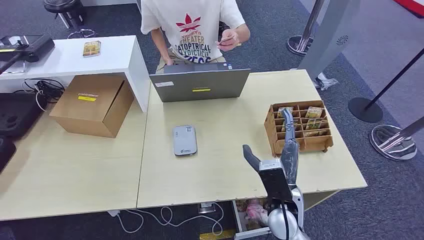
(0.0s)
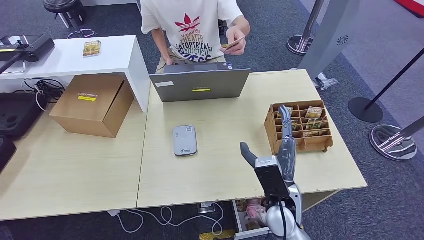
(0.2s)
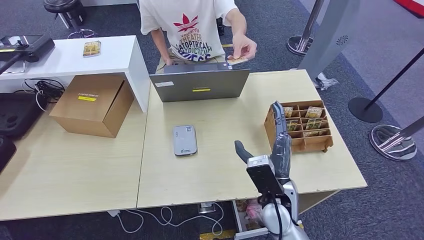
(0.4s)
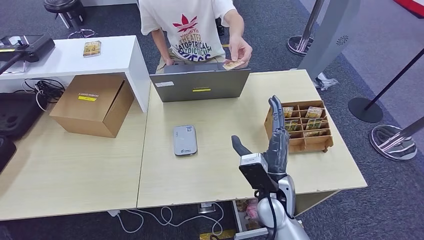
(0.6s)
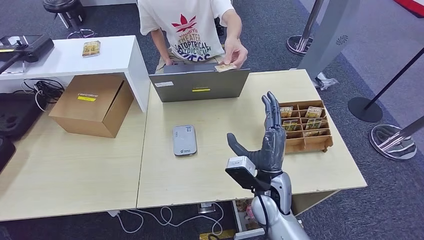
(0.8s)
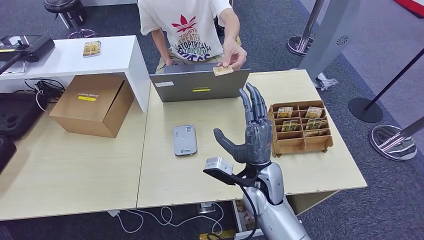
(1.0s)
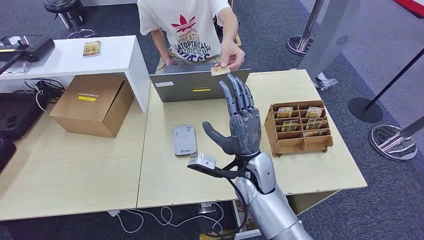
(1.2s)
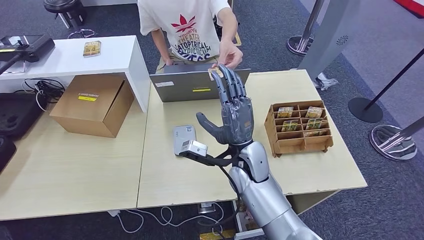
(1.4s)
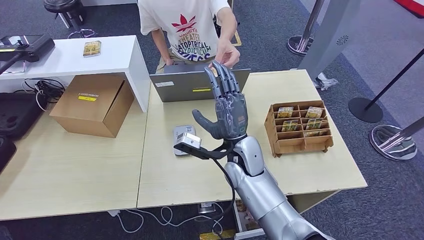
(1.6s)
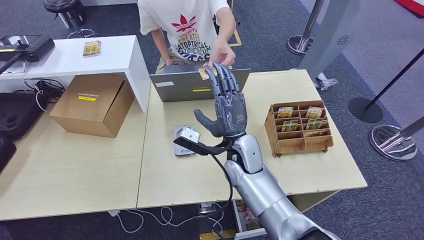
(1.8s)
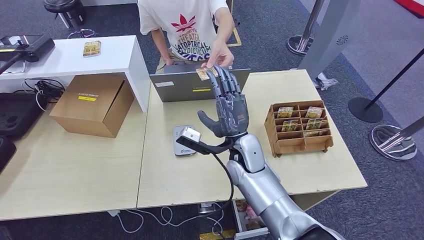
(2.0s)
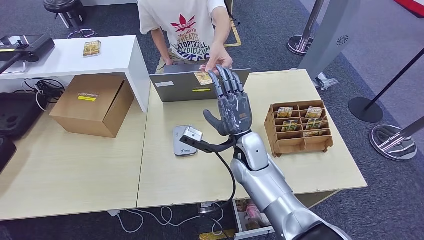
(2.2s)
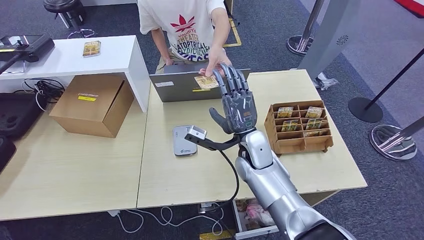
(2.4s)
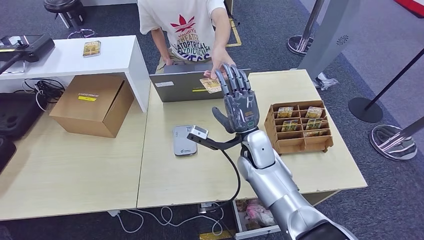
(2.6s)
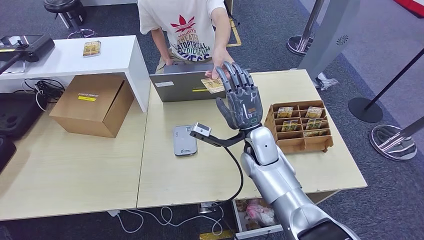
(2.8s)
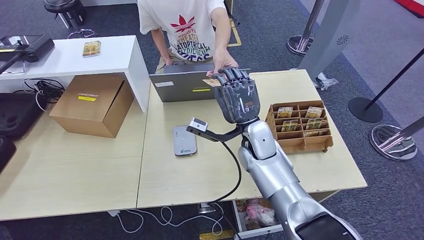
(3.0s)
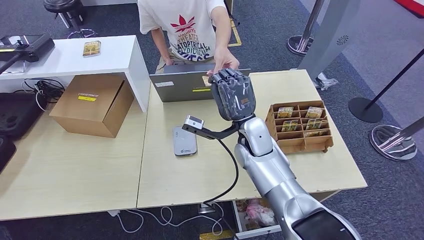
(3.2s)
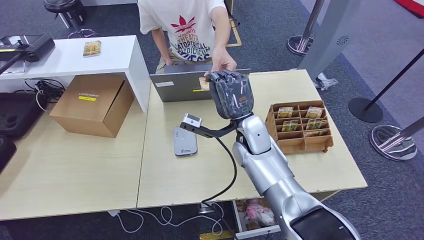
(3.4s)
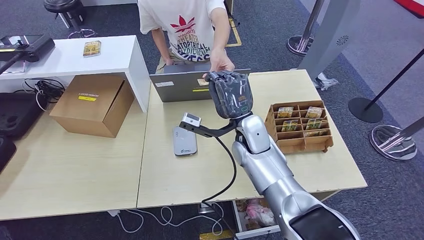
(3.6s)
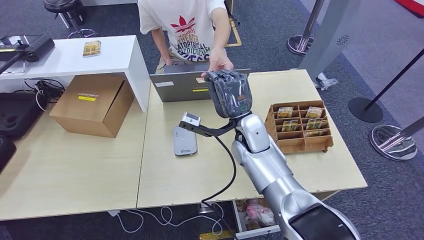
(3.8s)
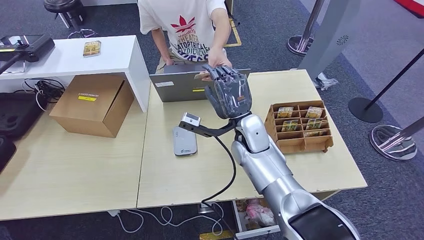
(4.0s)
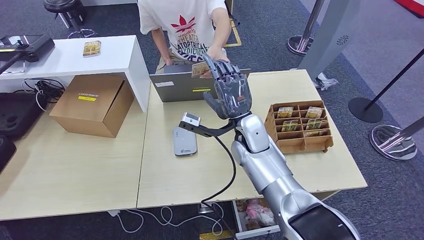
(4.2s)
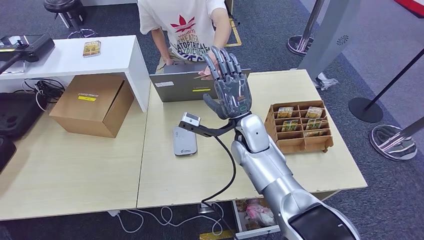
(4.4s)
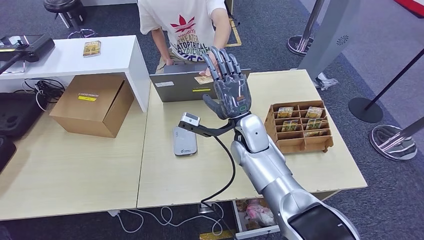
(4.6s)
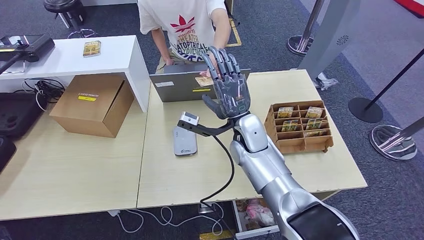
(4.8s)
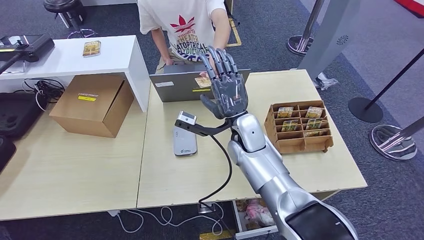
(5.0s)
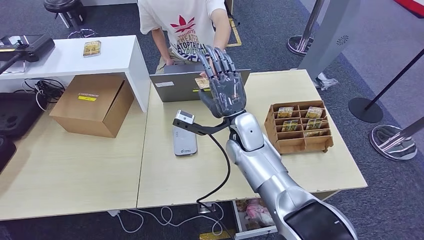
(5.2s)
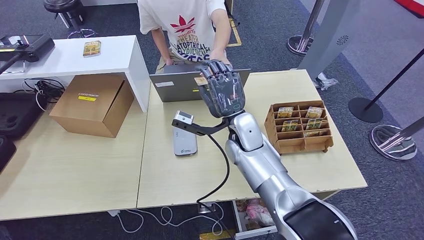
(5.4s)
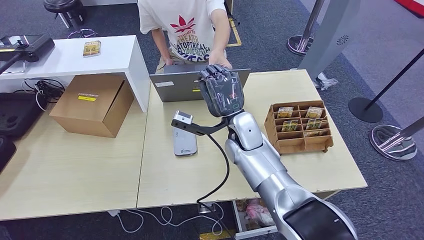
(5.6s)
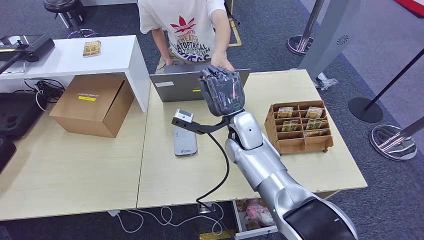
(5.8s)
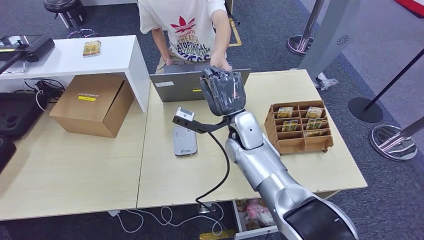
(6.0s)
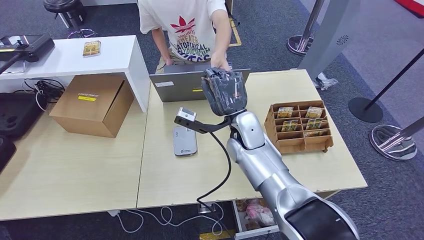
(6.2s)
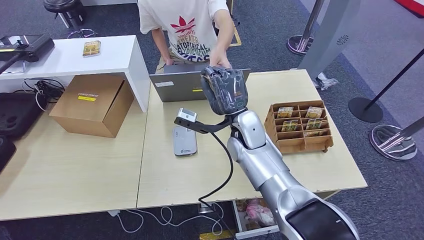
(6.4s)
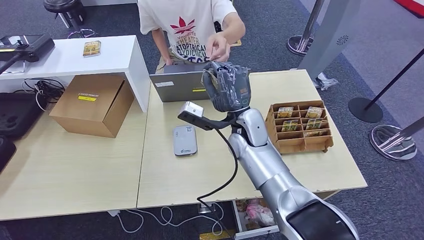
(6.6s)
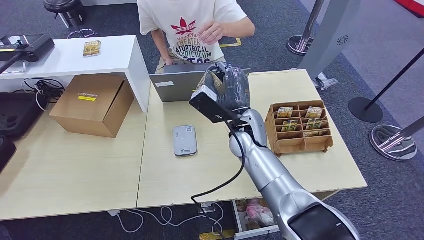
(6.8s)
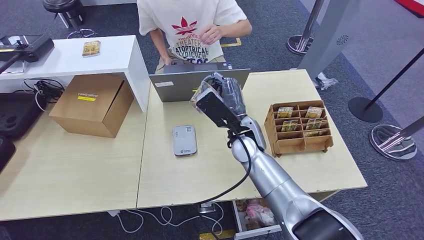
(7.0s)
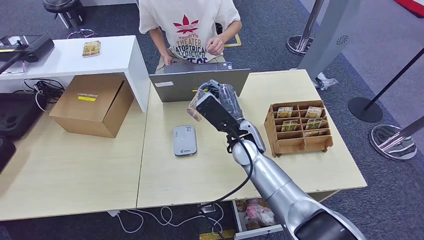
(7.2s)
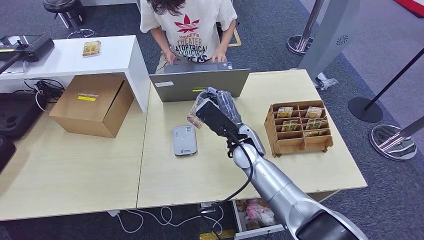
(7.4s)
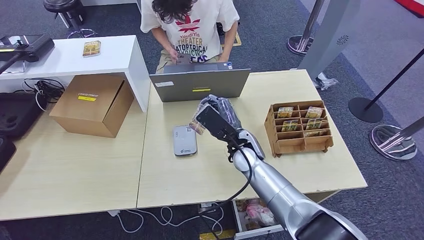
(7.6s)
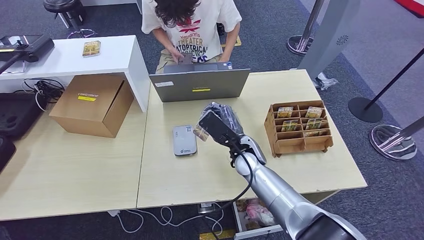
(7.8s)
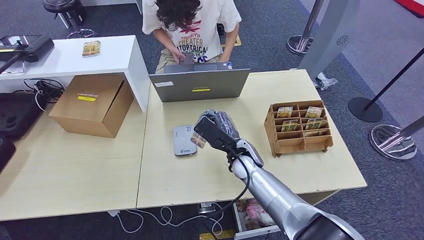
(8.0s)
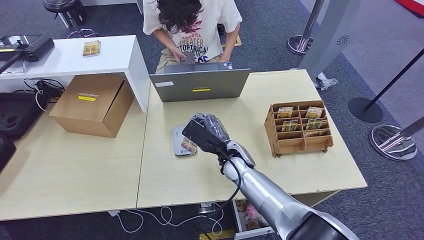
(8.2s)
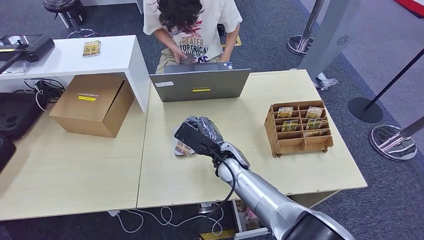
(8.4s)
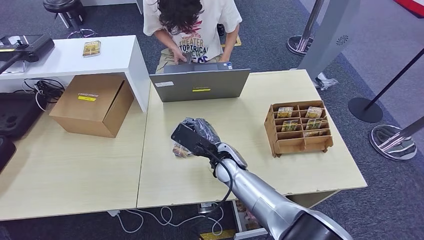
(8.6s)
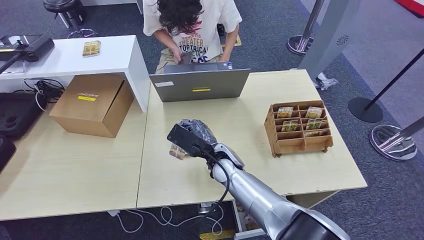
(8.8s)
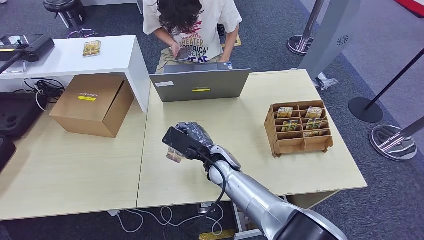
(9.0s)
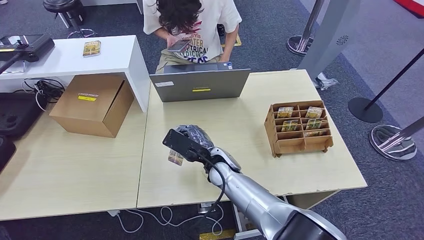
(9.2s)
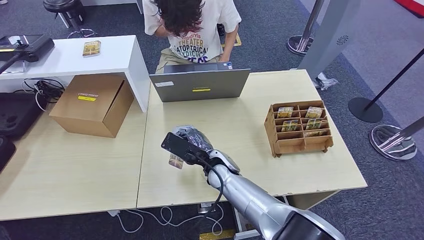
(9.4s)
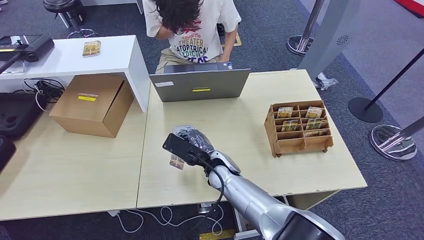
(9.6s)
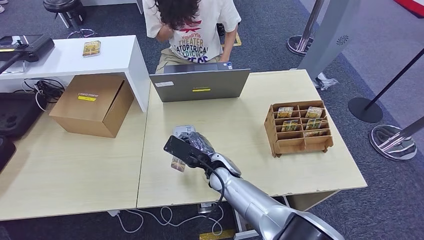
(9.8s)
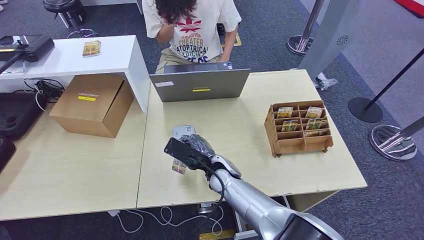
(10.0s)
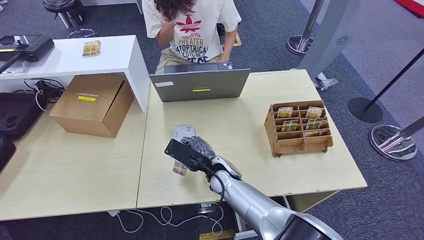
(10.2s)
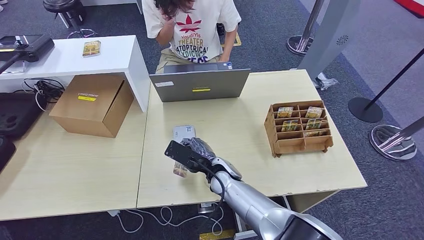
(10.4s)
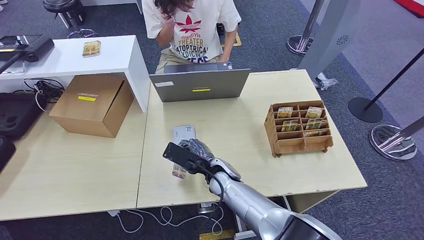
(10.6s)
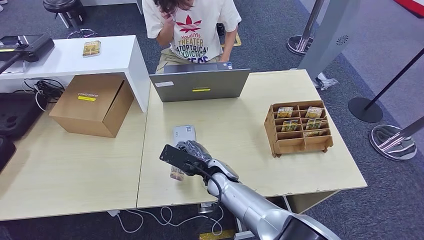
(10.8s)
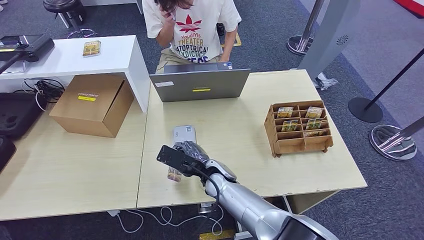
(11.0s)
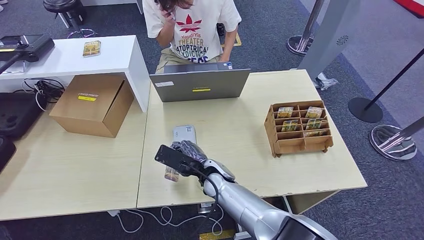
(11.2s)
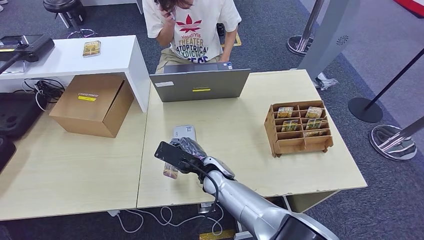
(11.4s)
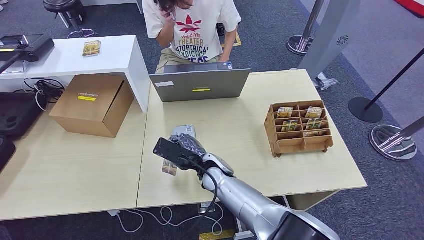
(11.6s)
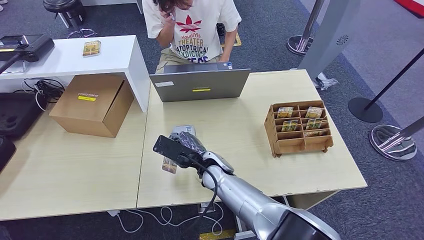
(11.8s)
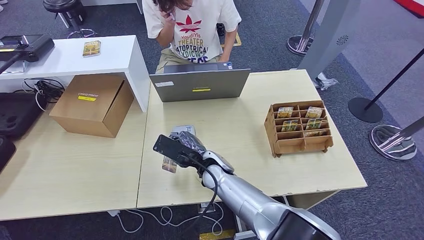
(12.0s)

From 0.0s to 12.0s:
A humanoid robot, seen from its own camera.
Step, from 0.0s to 4.0s: Take the ID card from the person's hand.
From 1.6s to 3.0s: The right hand moves about 5 cm.
From 3.0s to 6.0s: The hands move only a little.
From 6.0s to 7.6s: The right hand shifts by about 5 cm.
From 7.6s to 9.0s: The right hand heads to the left, covering roughly 5 cm.
From 9.0s to 12.0s: The hands make only small movements.

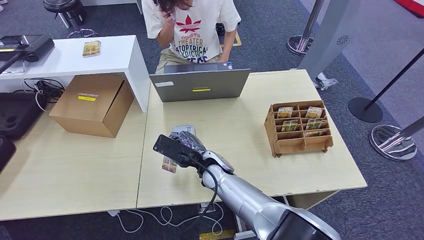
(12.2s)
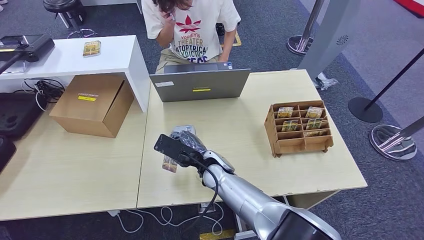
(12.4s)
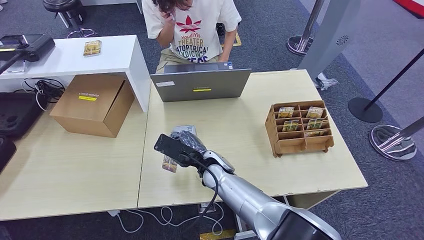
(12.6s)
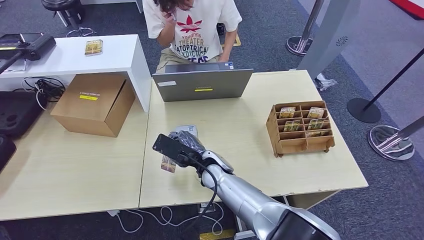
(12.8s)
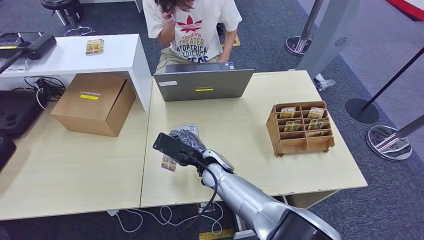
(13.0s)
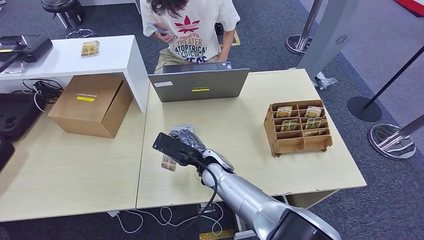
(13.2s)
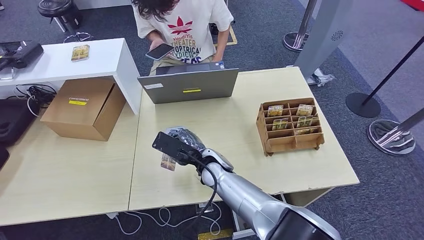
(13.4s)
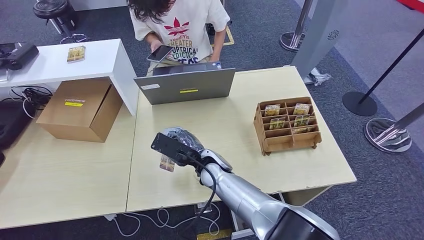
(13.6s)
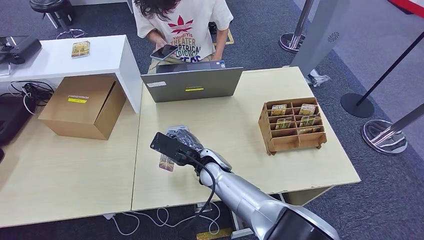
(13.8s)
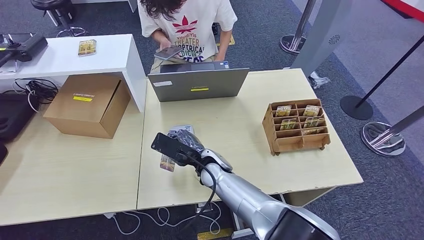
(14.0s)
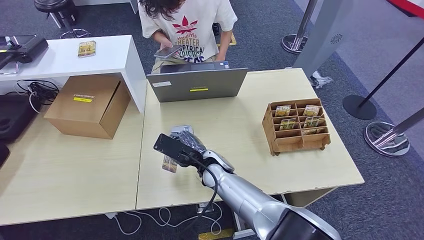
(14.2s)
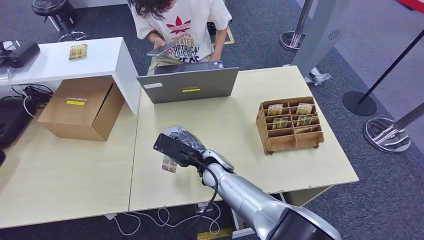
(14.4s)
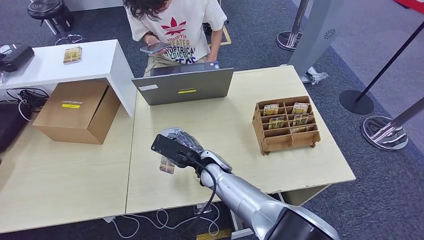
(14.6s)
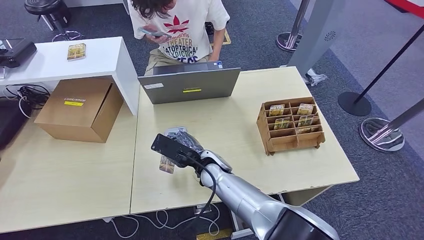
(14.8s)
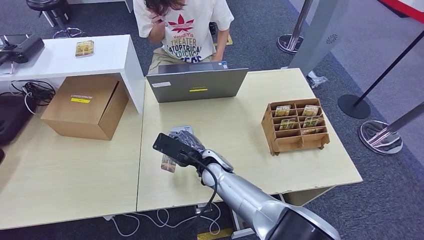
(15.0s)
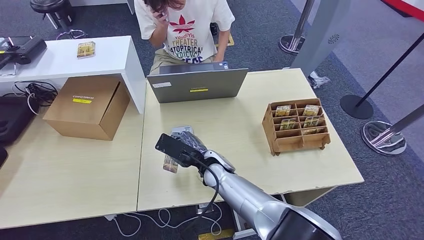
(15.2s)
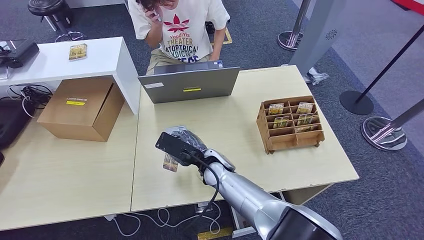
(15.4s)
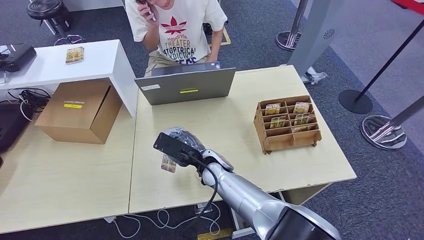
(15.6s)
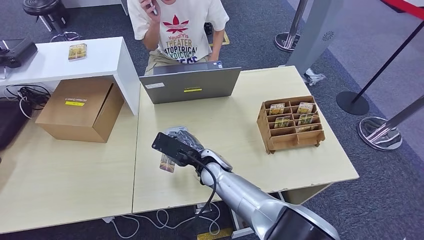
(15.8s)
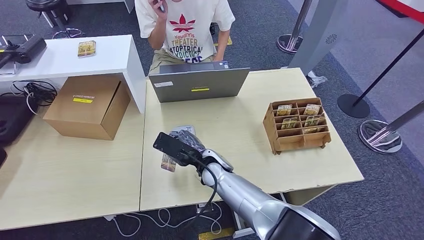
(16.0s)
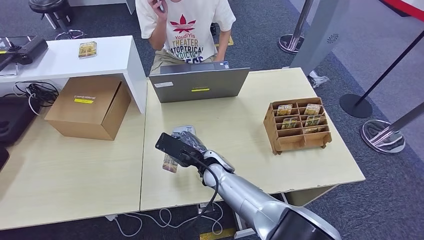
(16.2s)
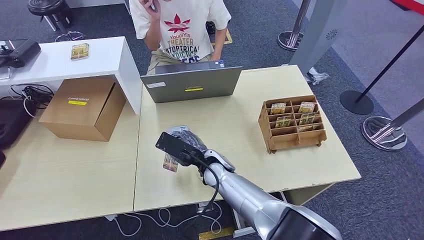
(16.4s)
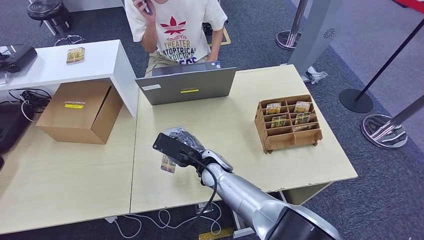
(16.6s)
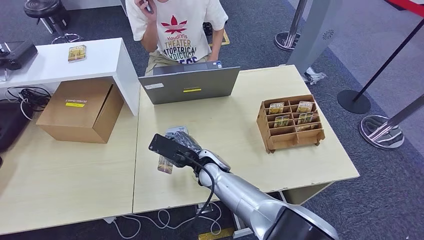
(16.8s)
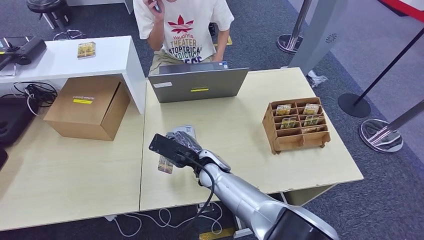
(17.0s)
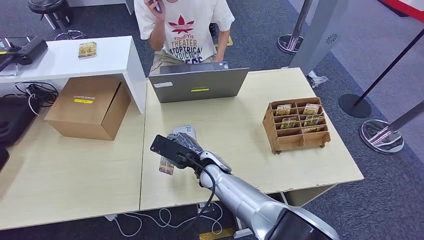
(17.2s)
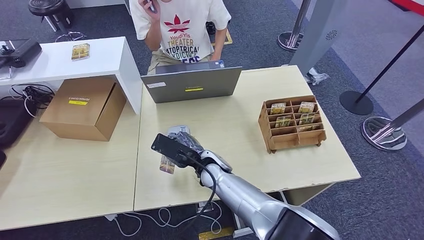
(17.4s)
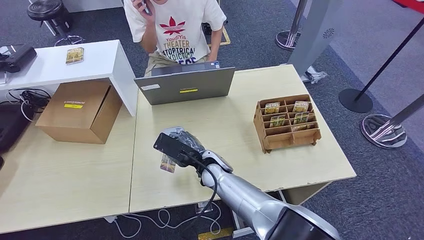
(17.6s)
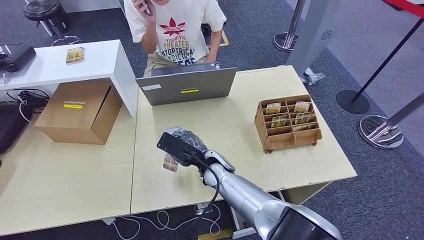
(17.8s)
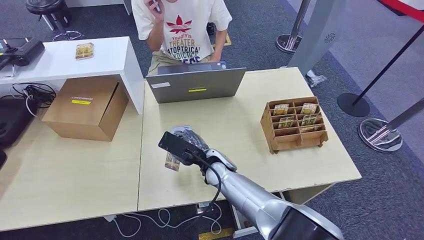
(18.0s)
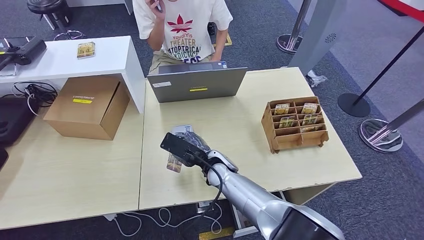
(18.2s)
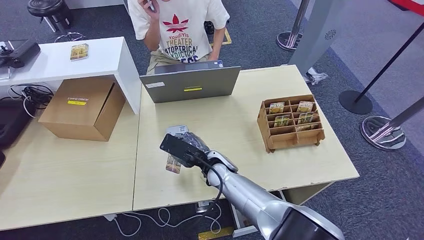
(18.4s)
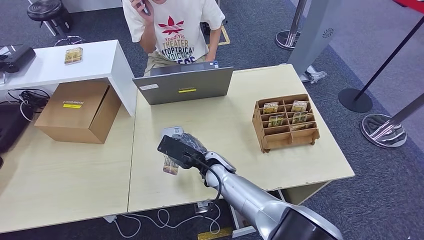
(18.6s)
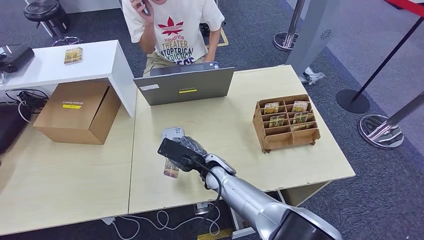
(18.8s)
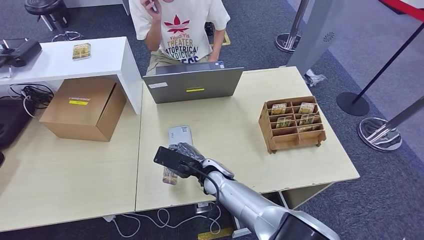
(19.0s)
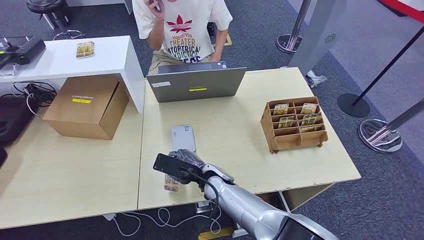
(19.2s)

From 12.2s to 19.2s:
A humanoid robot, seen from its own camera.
From 15.0s to 17.8s: Neither hand changes place.
